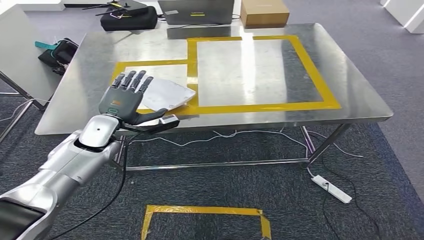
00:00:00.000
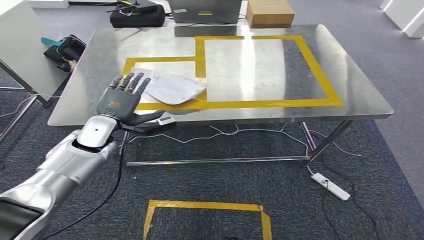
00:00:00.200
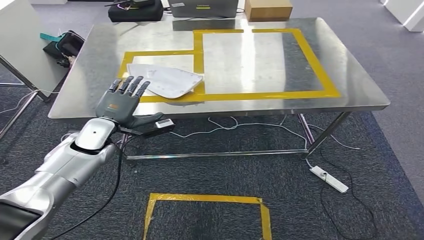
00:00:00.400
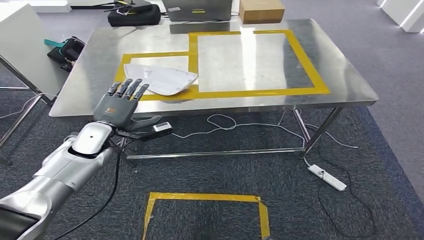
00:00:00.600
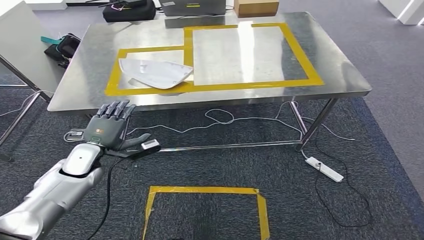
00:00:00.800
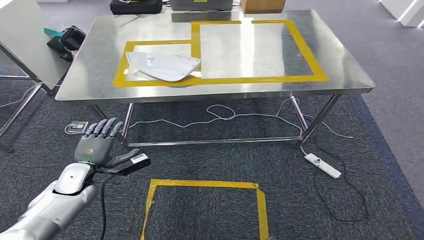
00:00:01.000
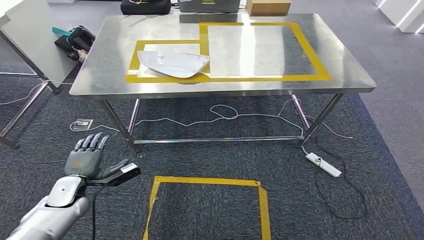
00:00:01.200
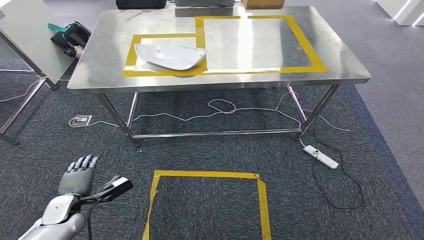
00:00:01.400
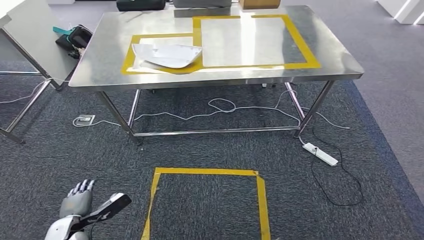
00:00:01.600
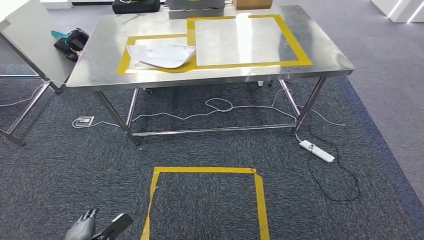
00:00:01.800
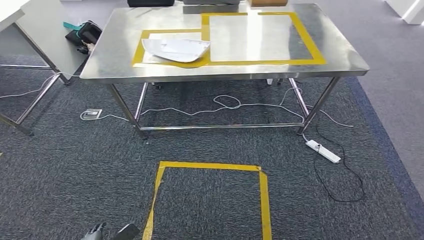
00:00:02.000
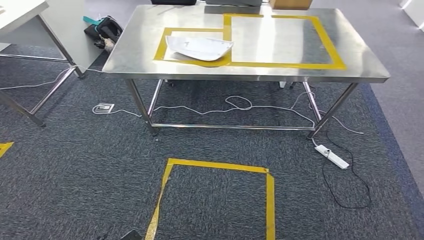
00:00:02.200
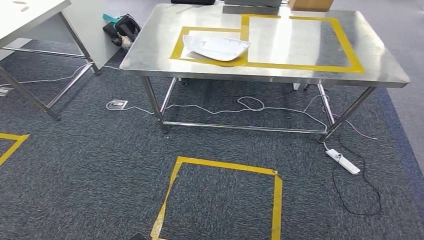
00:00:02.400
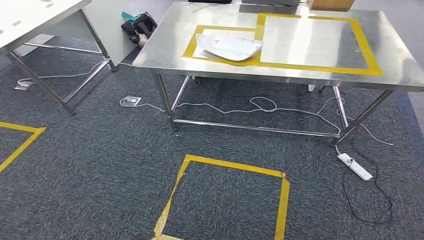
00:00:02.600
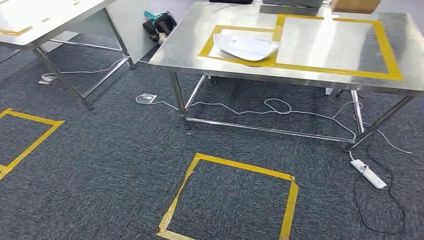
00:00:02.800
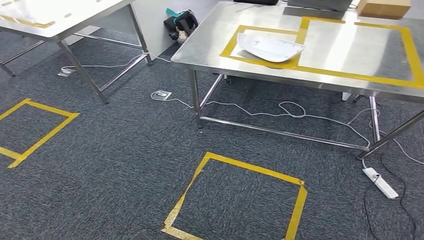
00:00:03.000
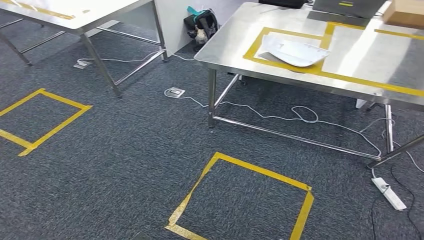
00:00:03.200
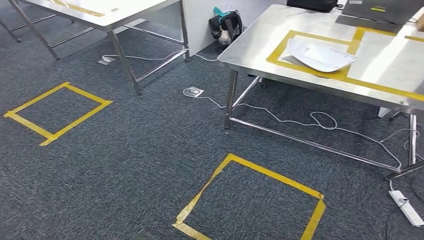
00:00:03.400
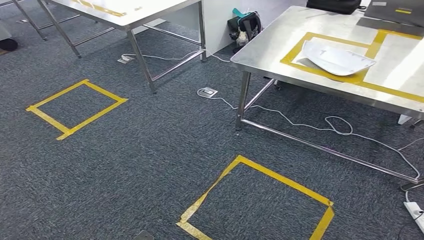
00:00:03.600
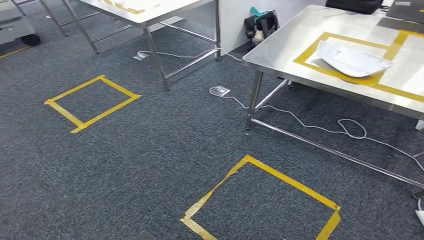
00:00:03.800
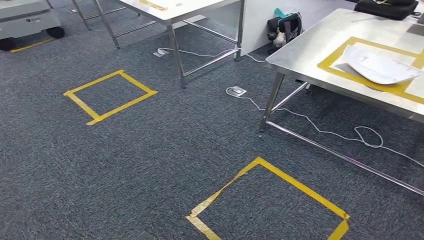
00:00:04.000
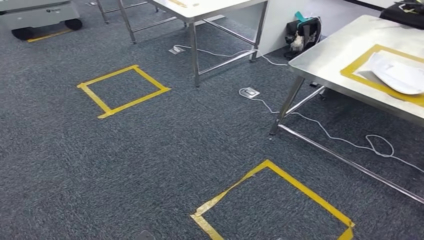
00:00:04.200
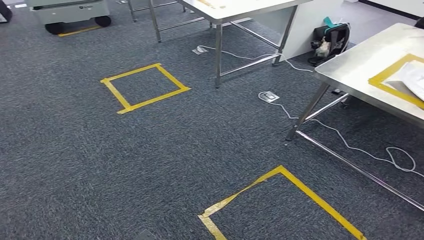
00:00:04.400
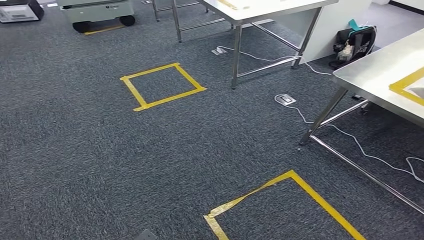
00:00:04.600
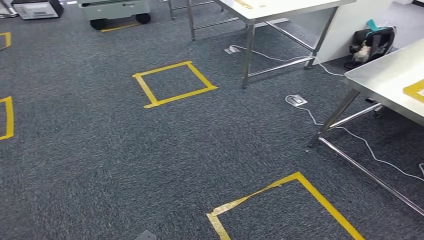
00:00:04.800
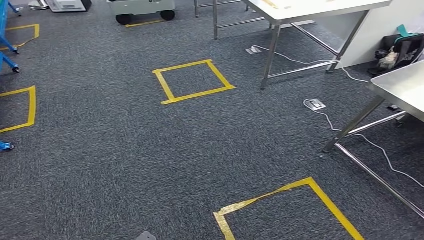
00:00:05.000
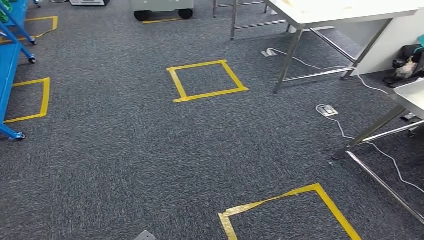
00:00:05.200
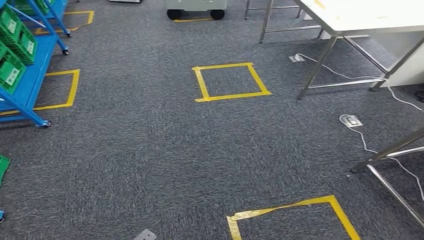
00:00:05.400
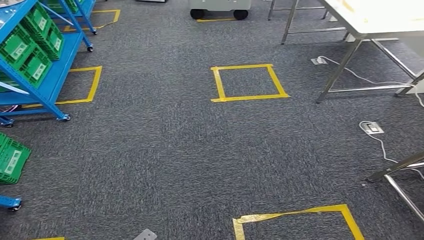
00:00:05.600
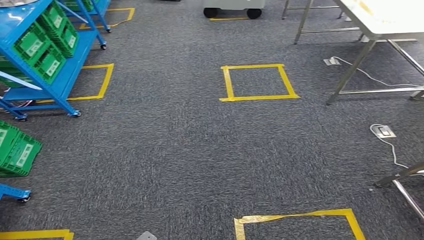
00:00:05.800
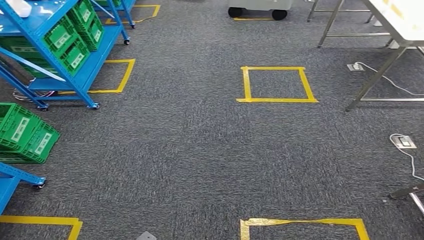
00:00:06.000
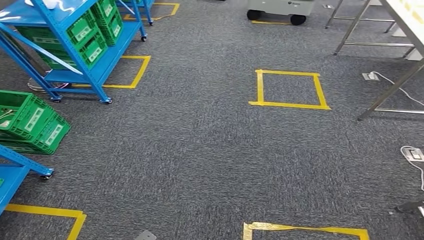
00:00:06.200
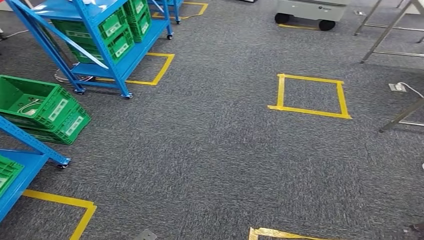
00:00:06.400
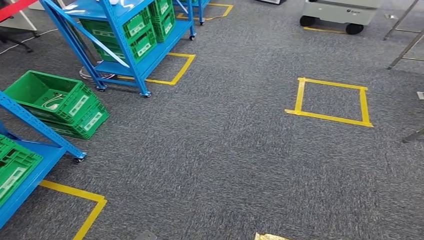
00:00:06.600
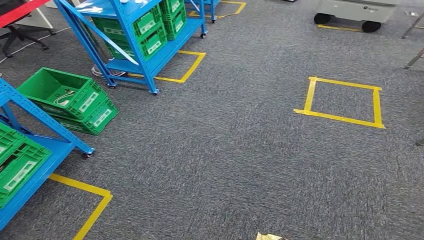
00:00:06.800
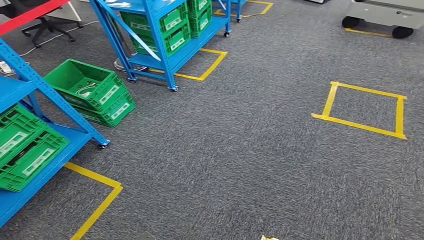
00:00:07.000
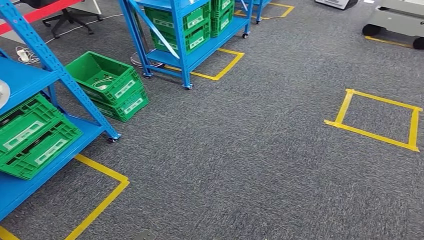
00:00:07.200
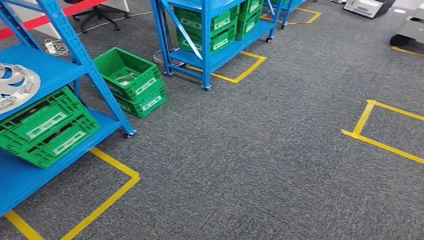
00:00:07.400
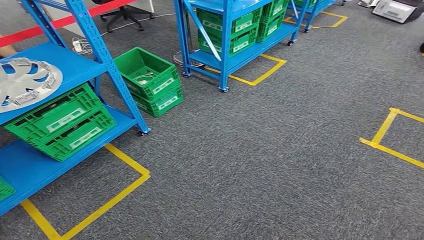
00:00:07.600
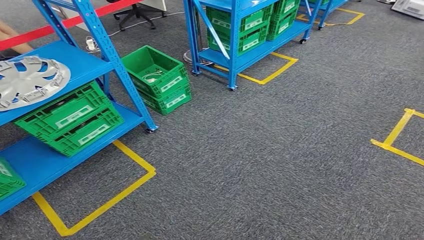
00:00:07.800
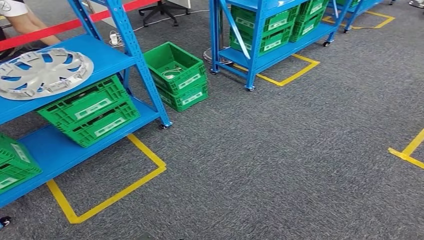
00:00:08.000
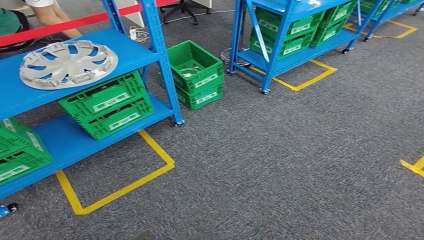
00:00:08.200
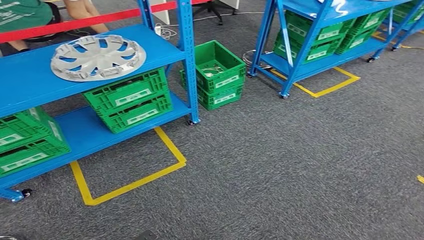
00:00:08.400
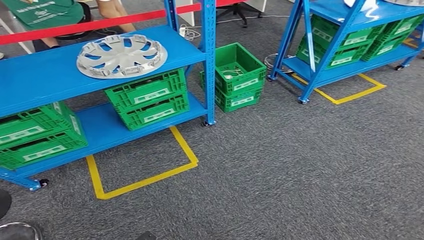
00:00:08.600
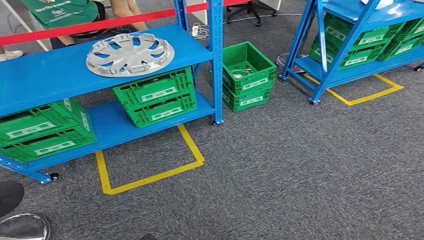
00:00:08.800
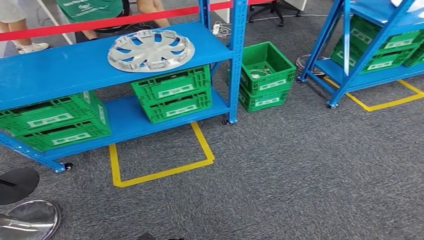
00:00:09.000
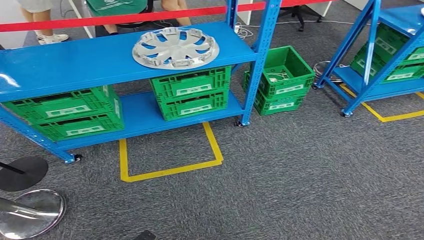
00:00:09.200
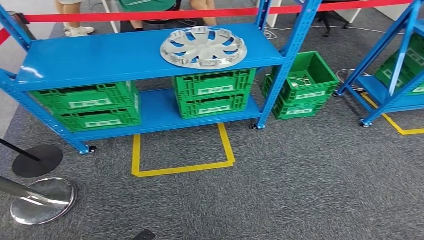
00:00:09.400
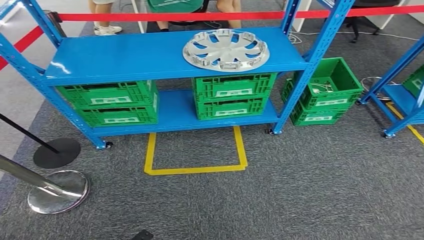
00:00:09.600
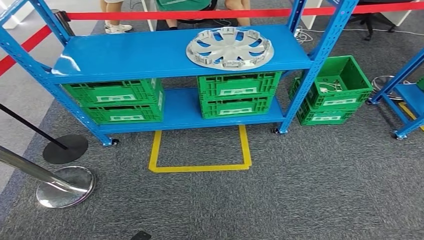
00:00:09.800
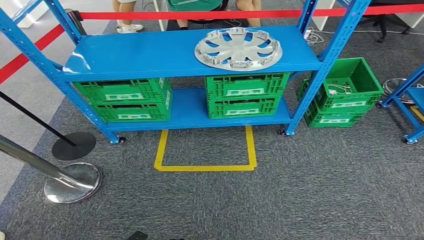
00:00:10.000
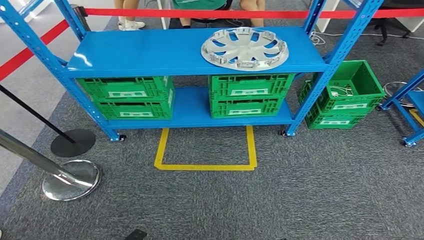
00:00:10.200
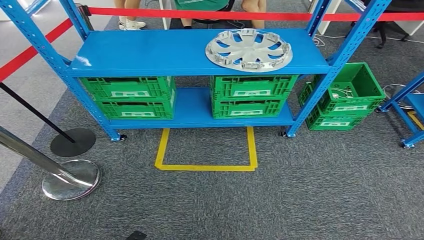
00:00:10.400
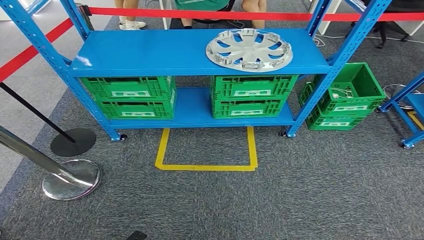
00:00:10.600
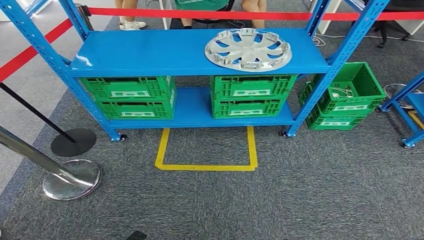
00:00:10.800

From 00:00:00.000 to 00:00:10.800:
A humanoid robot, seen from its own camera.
Step, from 00:00:00.000 to 00:00:02.200: Insert the small component into the corresponding slot on the workbench.
Step, from 00:00:02.400 to 00:00:10.800: Return to the initial position at the workbench.
